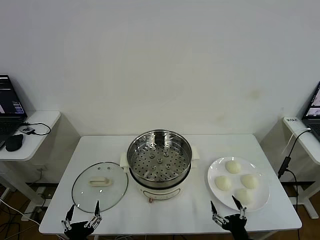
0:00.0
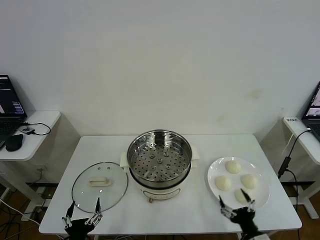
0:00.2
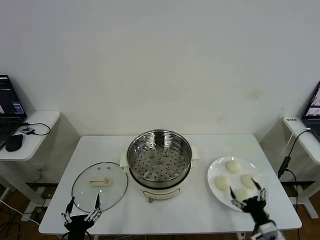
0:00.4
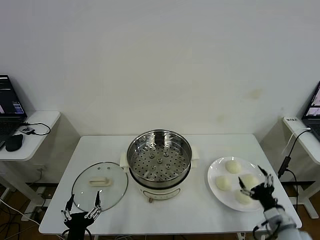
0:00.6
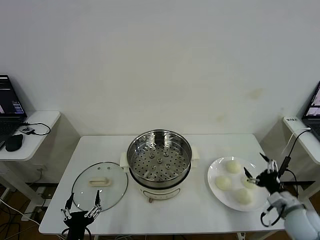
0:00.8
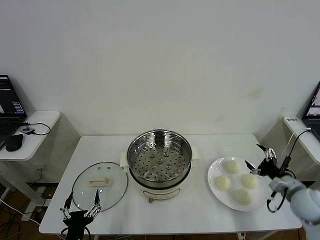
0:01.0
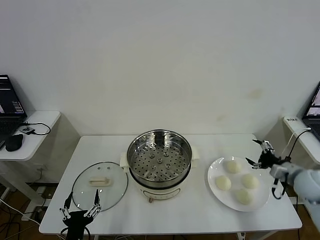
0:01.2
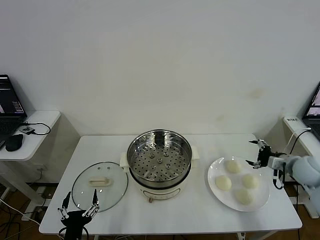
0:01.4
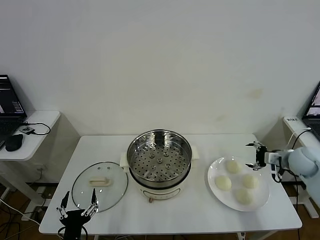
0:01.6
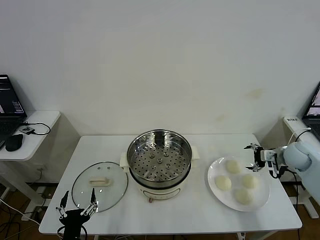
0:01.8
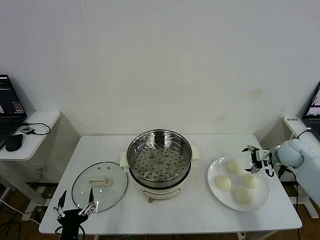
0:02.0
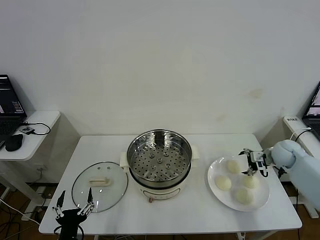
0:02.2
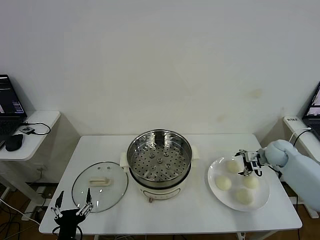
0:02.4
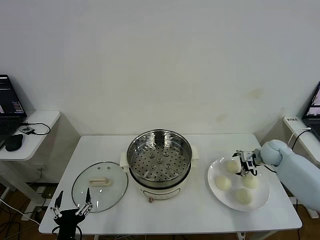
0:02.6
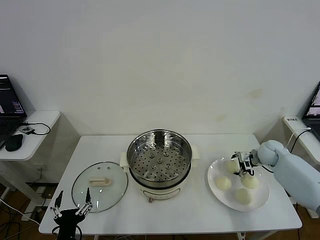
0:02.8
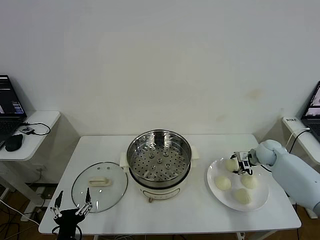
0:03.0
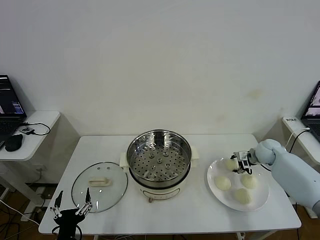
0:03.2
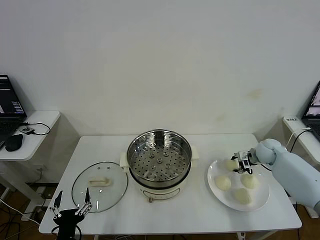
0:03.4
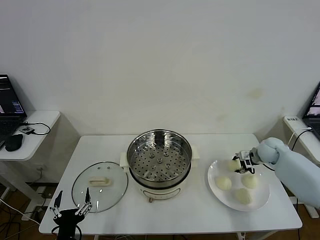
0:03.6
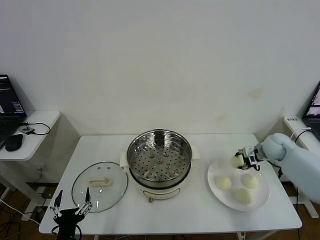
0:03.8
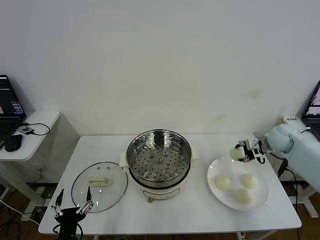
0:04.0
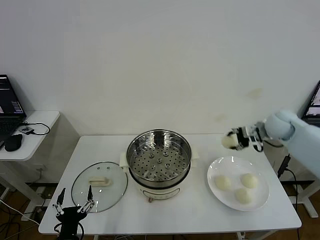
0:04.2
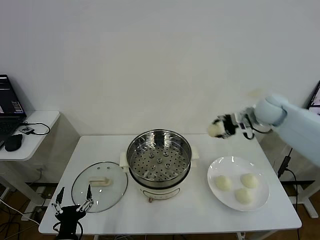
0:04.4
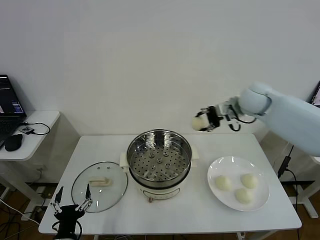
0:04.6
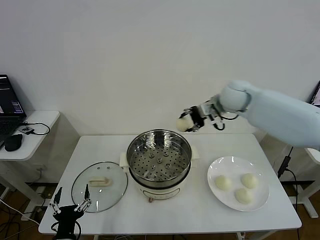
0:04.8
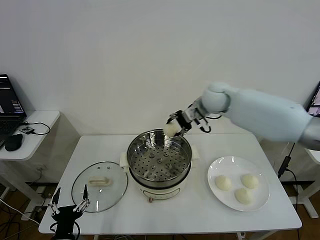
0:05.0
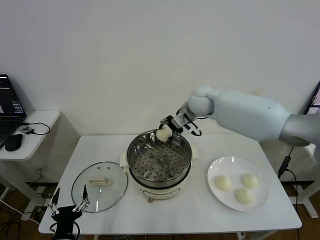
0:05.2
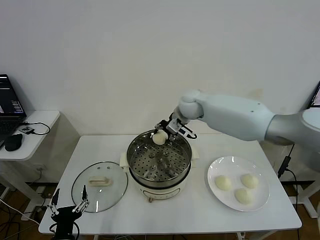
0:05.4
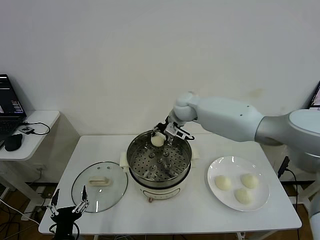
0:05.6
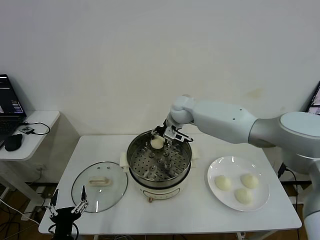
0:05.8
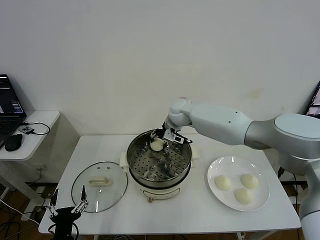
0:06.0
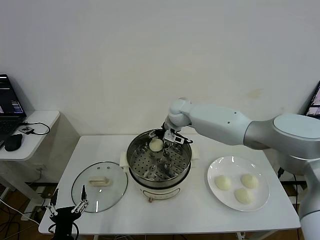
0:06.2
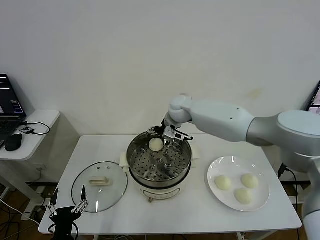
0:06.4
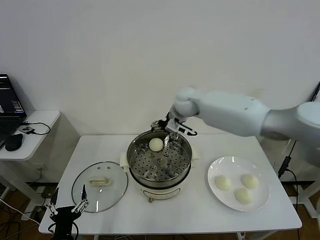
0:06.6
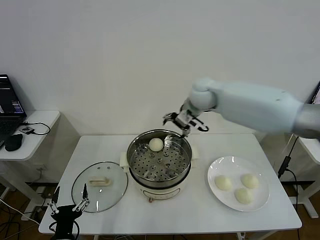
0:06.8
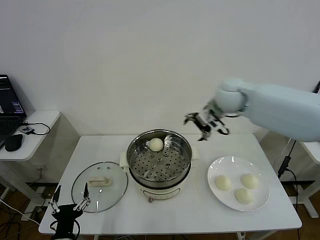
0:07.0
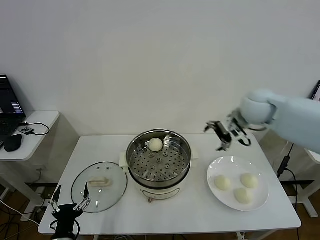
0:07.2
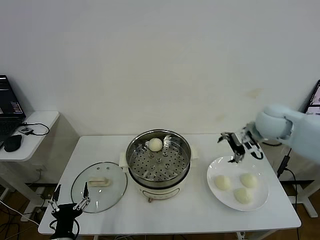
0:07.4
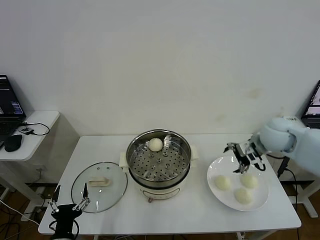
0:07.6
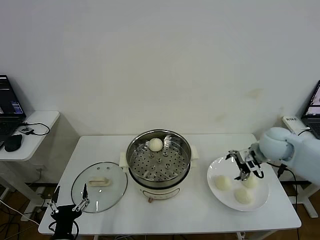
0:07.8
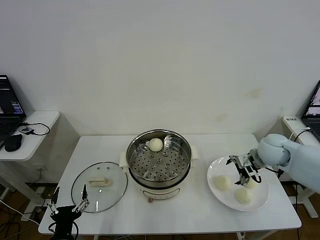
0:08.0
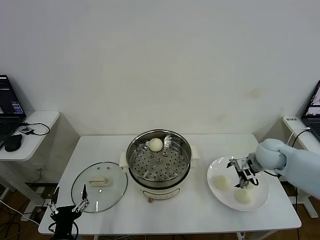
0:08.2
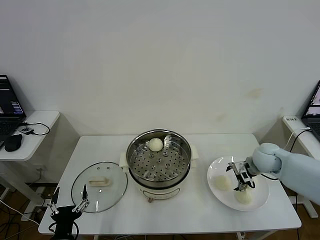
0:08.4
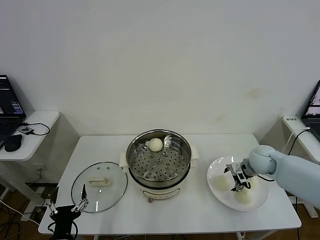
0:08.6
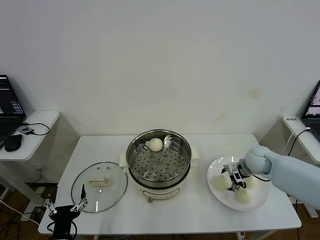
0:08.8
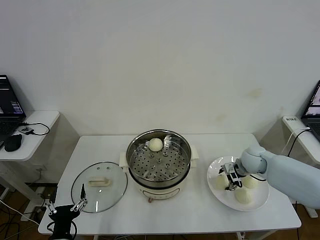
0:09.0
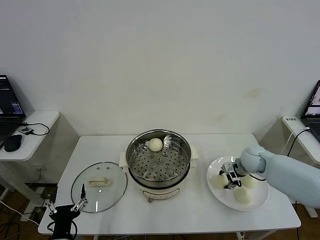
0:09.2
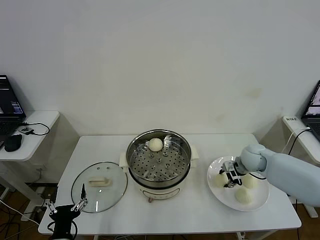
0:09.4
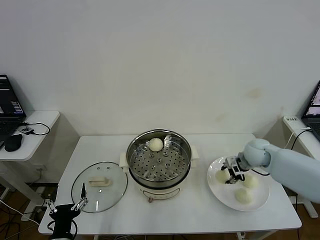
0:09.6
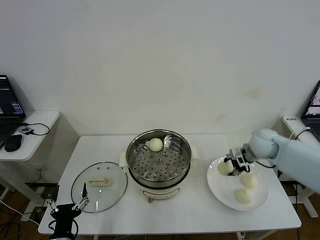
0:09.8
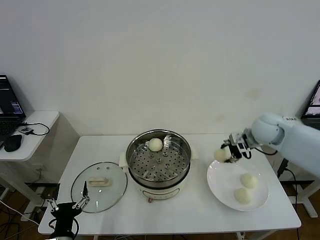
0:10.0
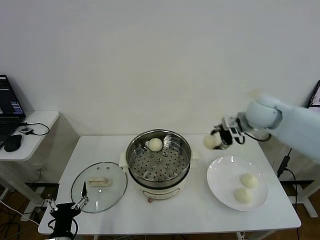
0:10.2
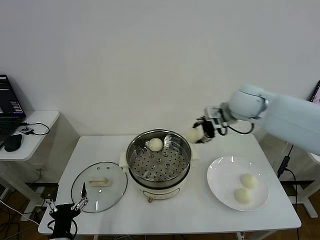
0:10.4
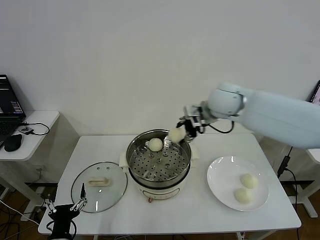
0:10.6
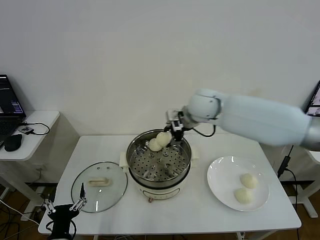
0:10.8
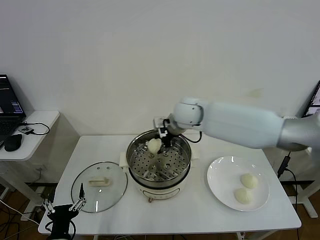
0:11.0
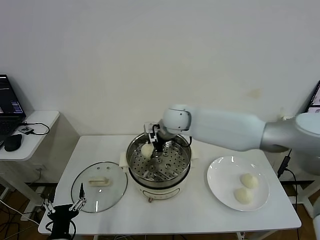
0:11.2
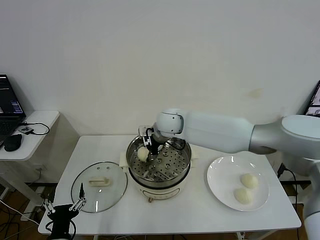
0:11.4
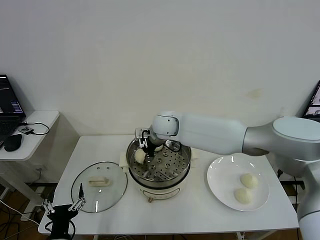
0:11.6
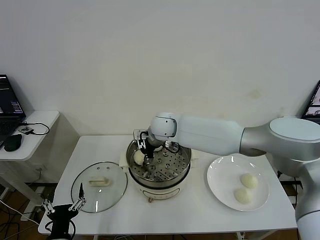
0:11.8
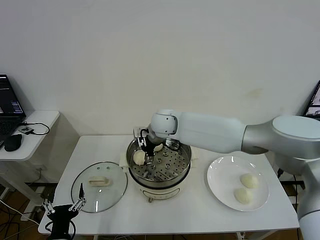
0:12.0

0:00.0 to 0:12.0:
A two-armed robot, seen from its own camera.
Step, 0:00.0 to 0:03.2: Grasp the baozi in the plate with right gripper.
Step, 0:03.4 to 0:06.2: Place the baozi on the steamer with right gripper.
Step, 0:06.4 to 0:09.2: Grasp the baozi in the plate with right gripper.
Step, 0:09.4 to 0:12.0: Place the baozi on the steamer with right gripper.
0:01.6 to 0:03.0: The right gripper goes approximately 10 cm forward, downward and to the left, and closes its fingers.
0:03.0 to 0:04.4: The right gripper moves upward and to the left, approximately 25 cm.
0:04.4 to 0:06.0: The right gripper shifts roughly 25 cm to the left.
0:06.0 to 0:07.6: The right gripper travels to the right and backward by some 30 cm, and opens.
0:07.6 to 0:09.0: The right gripper shifts roughly 15 cm downward, and closes up.
0:09.0 to 0:10.4: The right gripper shifts roughly 25 cm upward and to the left.
0:10.4 to 0:12.0: The right gripper heads to the left and downward, covering some 25 cm, and opens up.

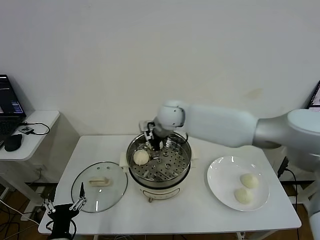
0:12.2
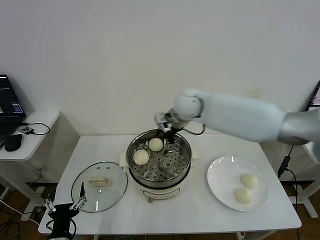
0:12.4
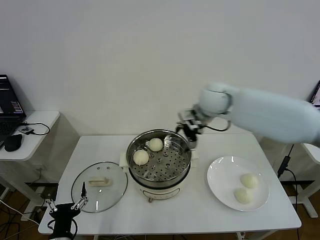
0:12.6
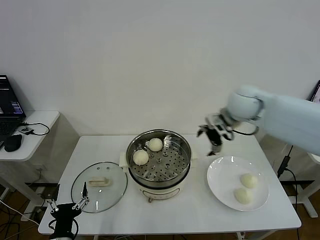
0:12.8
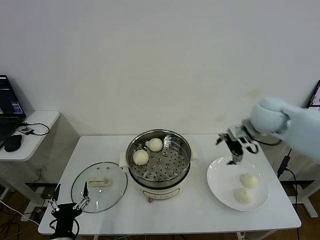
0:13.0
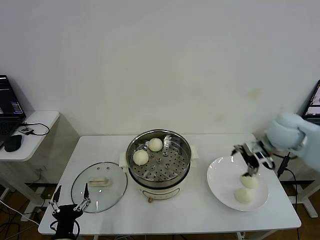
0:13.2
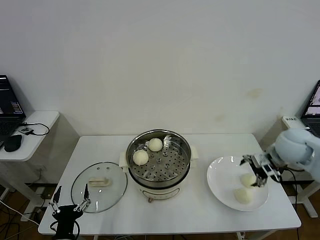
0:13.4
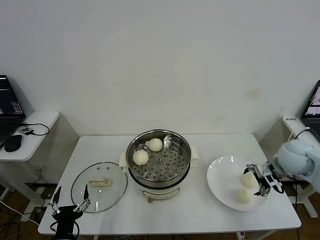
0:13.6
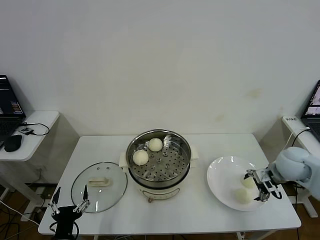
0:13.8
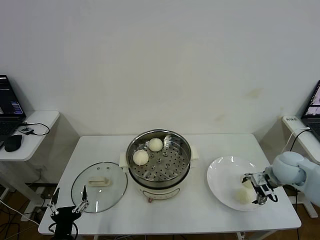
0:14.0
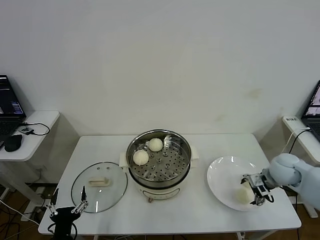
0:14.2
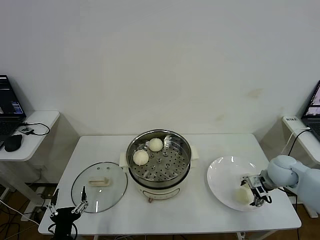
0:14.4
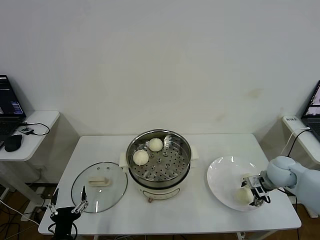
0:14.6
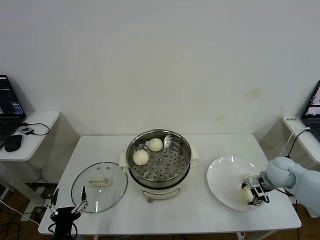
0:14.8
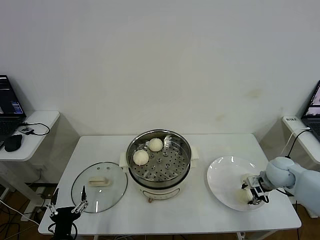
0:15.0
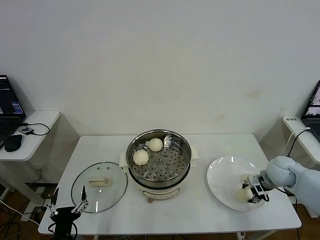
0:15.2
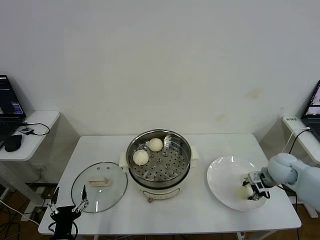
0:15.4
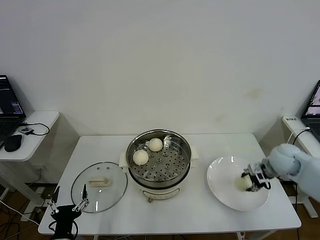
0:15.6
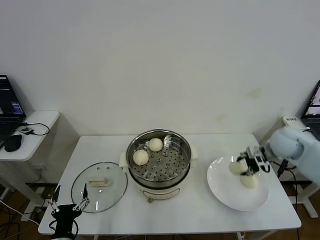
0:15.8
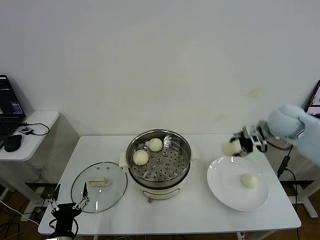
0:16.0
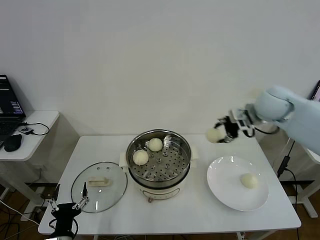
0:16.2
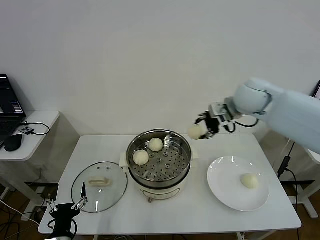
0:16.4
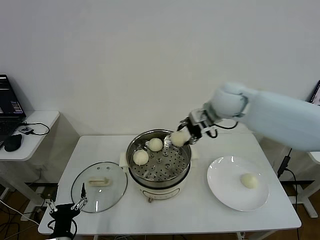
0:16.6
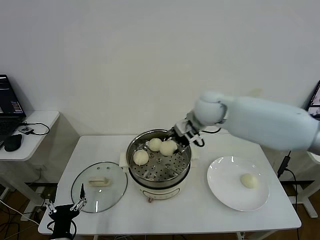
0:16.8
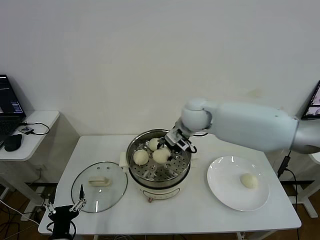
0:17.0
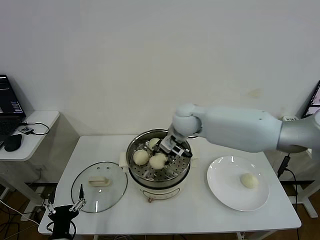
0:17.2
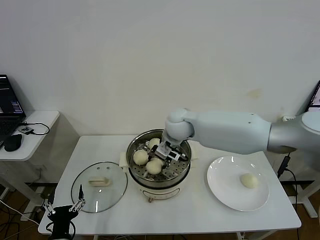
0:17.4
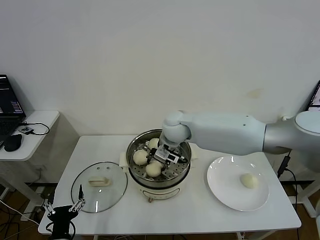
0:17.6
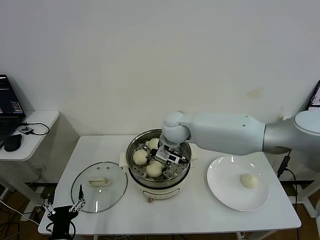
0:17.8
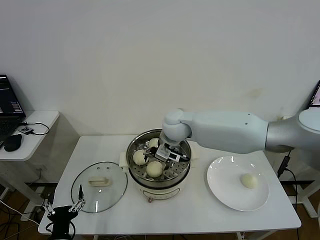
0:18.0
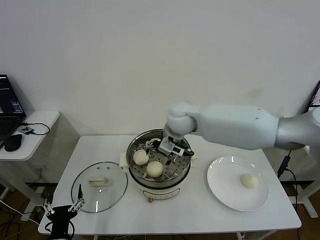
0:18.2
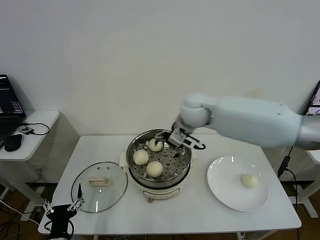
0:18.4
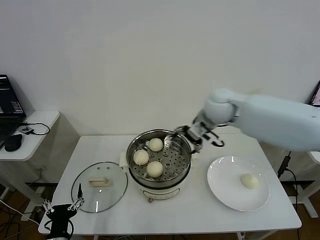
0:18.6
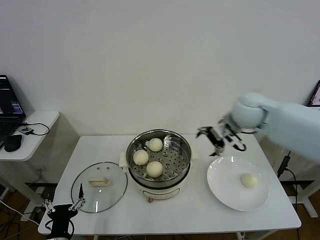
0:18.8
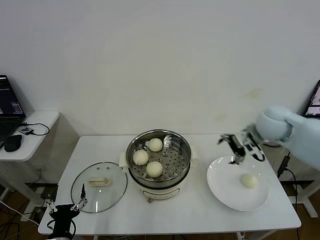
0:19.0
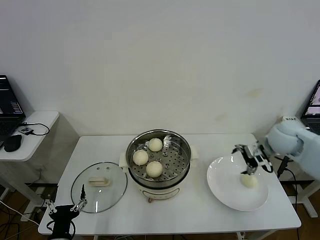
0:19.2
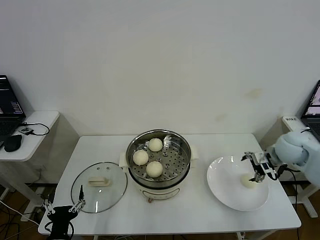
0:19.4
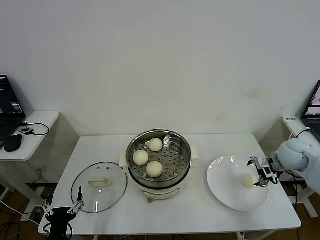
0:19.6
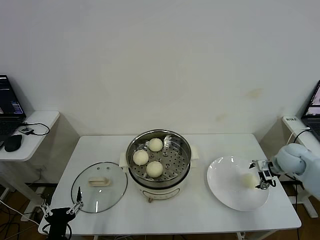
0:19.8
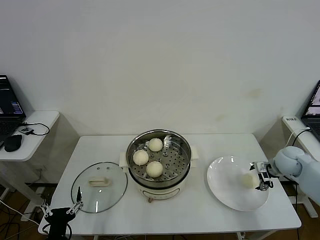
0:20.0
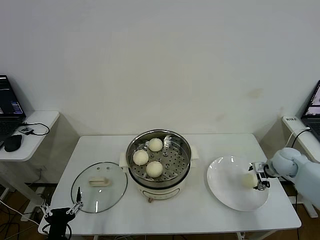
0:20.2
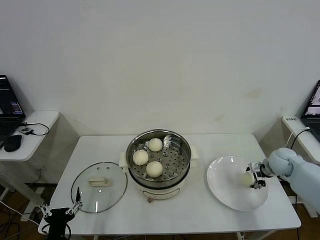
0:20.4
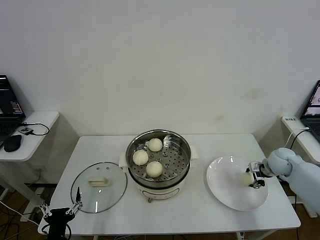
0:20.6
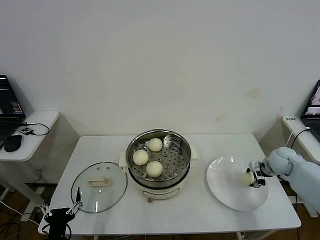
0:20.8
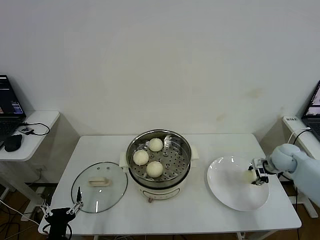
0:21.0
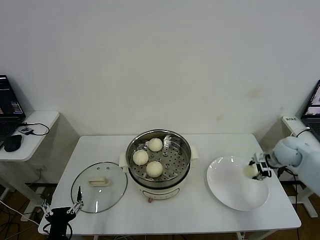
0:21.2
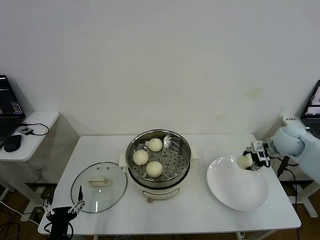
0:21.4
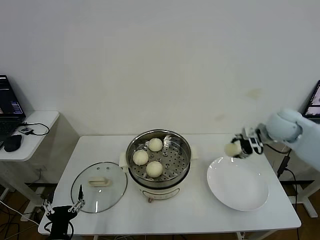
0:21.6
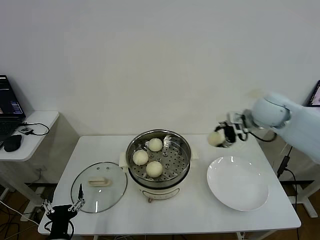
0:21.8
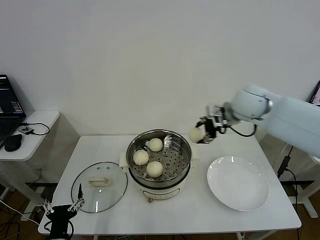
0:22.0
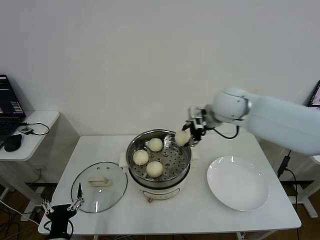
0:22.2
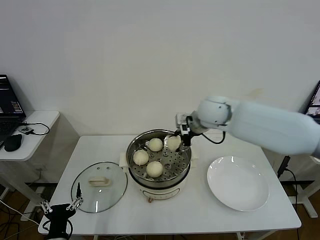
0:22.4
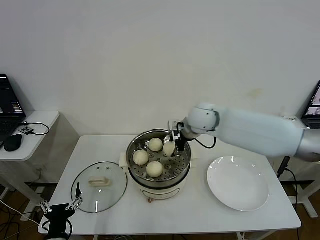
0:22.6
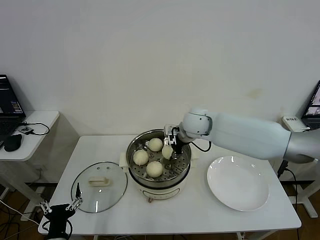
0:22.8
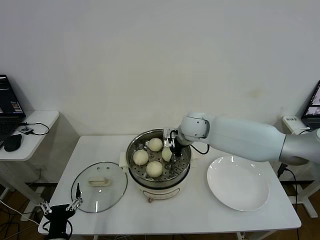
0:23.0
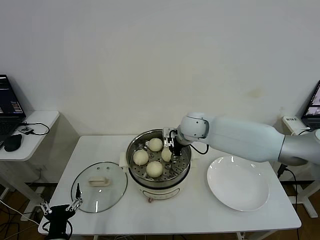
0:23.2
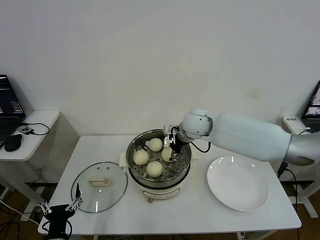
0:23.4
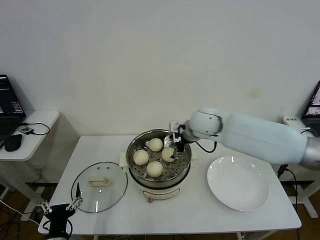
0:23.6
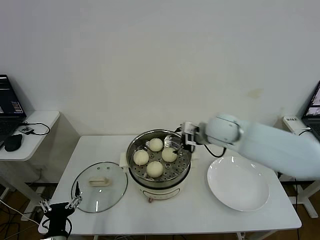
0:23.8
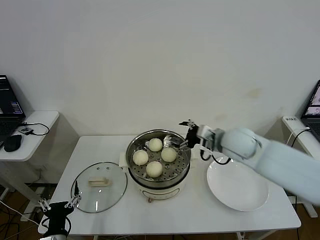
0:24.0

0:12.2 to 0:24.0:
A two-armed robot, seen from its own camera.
Step, 0:12.2 to 0:15.2: Grasp the baozi in the plate with right gripper.
Step, 0:15.4 to 0:18.0: Place the baozi on the steamer with right gripper.
Step, 0:18.2 to 0:20.6: Grasp the baozi in the plate with right gripper.
Step, 0:20.8 to 0:23.2: Place the baozi on the steamer with right gripper.
0:12.2 to 0:13.6: The right gripper is displaced to the right by about 35 cm.
0:13.6 to 0:15.2: The right gripper travels downward by approximately 10 cm, and closes its fingers.
0:15.2 to 0:16.6: The right gripper shifts about 35 cm to the left, upward and forward.
0:16.6 to 0:18.2: The right gripper goes roughly 15 cm to the left and downward, and opens its fingers.
0:18.2 to 0:19.6: The right gripper is displaced to the right by about 35 cm.
0:19.6 to 0:21.0: The right gripper travels downward by about 5 cm, and closes.
0:21.0 to 0:22.6: The right gripper heads to the left and upward, covering about 35 cm.
0:22.6 to 0:24.0: The right gripper goes roughly 10 cm to the right and backward, and opens up.
